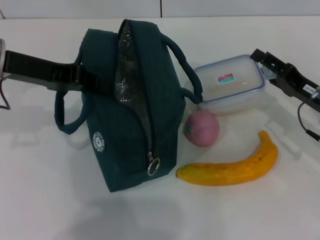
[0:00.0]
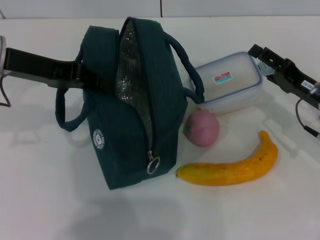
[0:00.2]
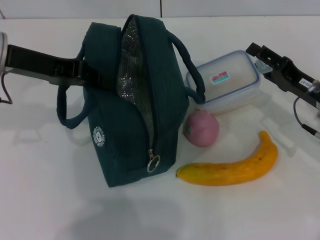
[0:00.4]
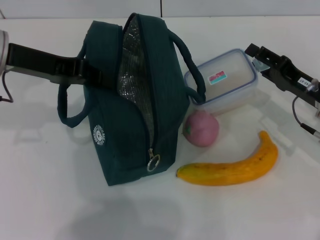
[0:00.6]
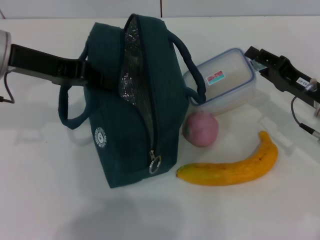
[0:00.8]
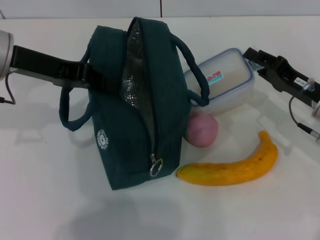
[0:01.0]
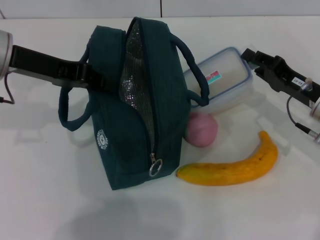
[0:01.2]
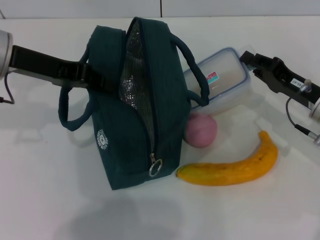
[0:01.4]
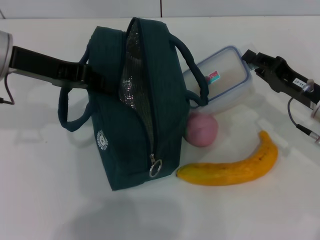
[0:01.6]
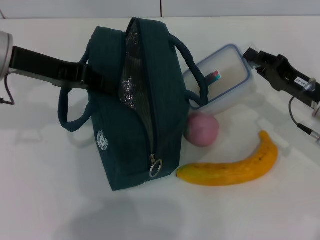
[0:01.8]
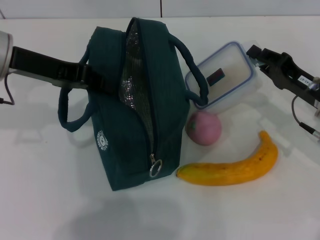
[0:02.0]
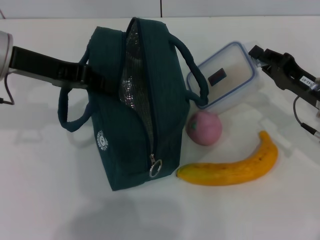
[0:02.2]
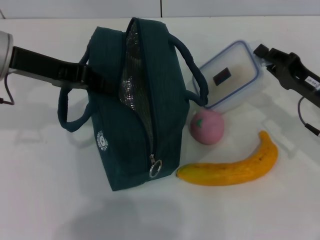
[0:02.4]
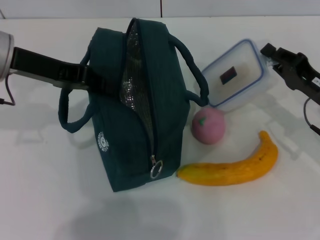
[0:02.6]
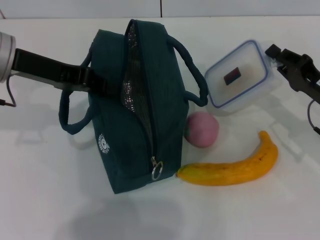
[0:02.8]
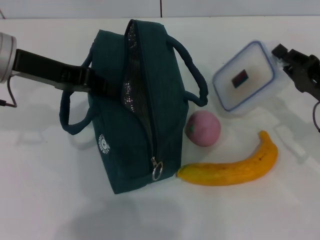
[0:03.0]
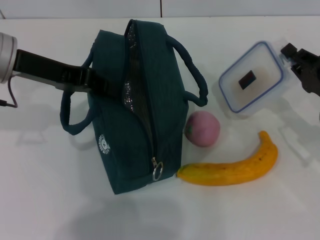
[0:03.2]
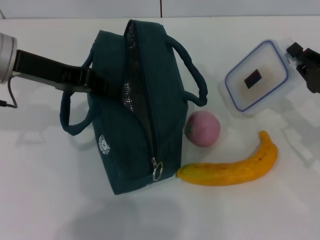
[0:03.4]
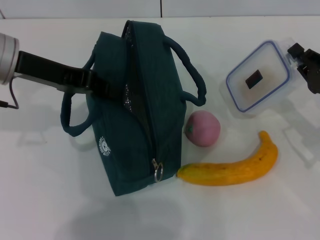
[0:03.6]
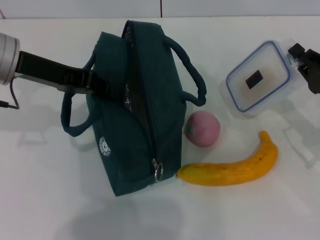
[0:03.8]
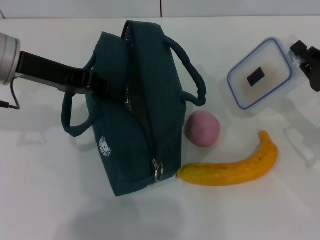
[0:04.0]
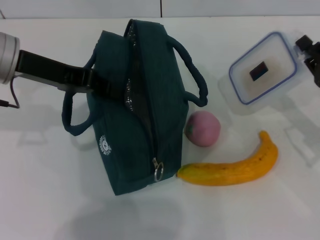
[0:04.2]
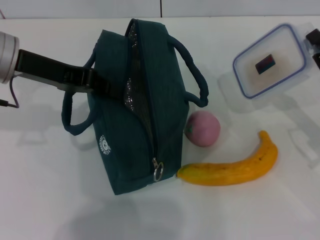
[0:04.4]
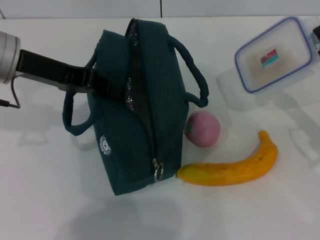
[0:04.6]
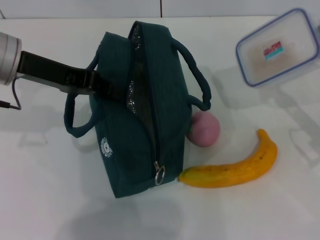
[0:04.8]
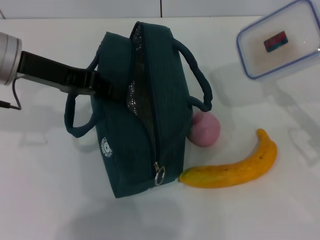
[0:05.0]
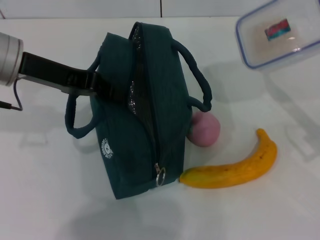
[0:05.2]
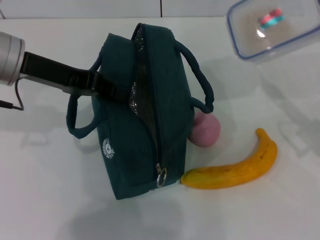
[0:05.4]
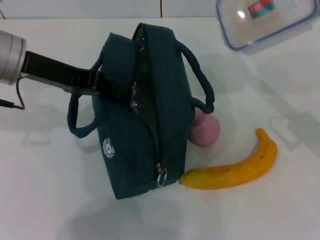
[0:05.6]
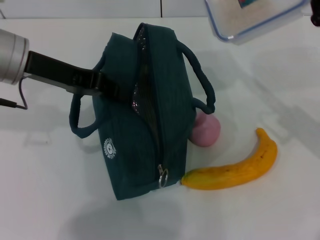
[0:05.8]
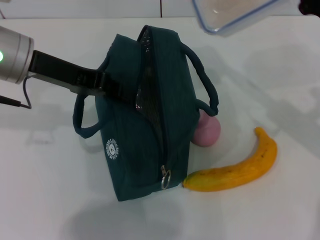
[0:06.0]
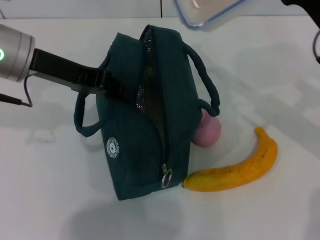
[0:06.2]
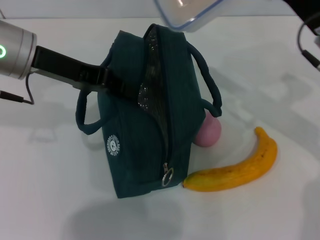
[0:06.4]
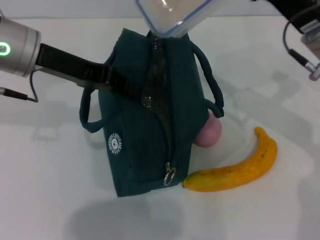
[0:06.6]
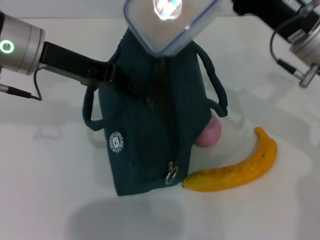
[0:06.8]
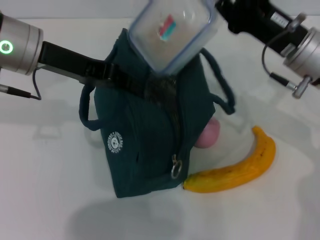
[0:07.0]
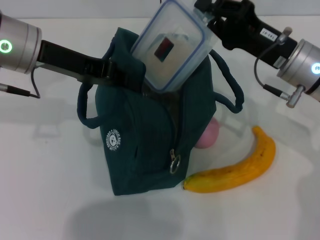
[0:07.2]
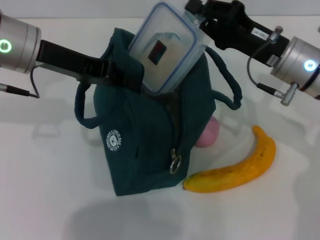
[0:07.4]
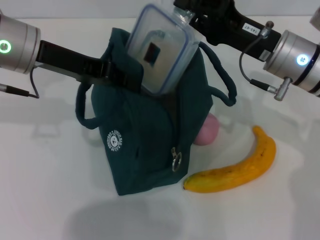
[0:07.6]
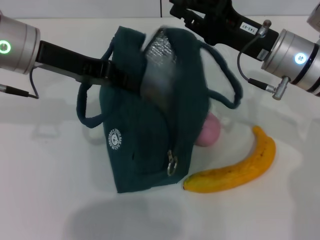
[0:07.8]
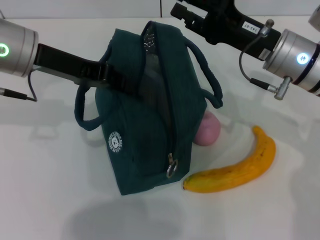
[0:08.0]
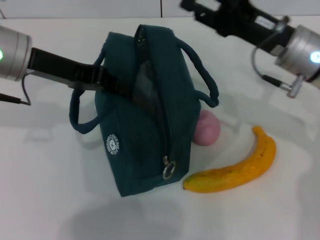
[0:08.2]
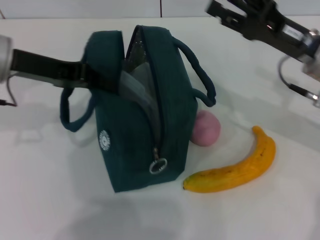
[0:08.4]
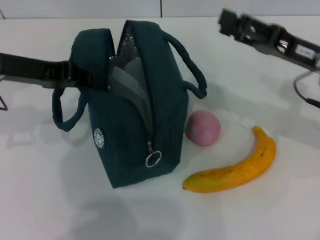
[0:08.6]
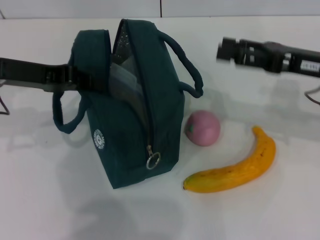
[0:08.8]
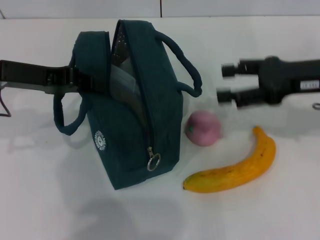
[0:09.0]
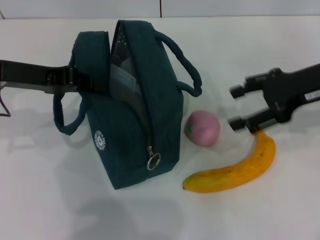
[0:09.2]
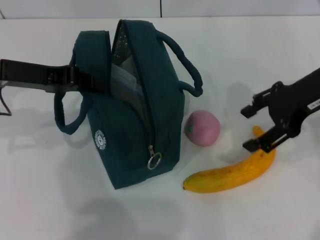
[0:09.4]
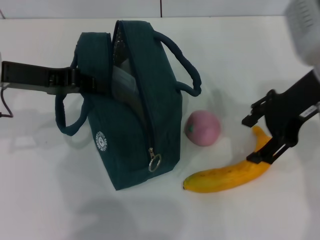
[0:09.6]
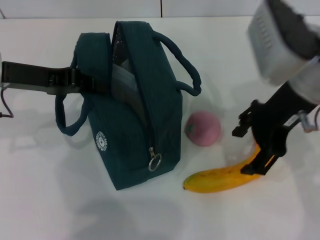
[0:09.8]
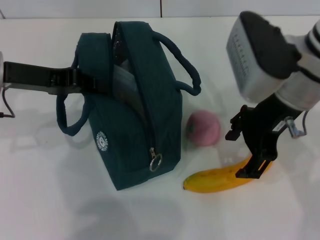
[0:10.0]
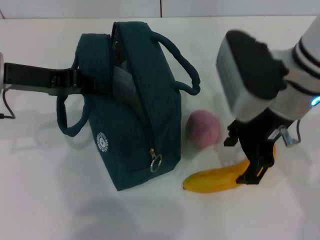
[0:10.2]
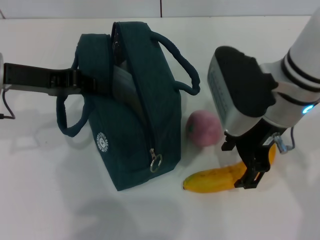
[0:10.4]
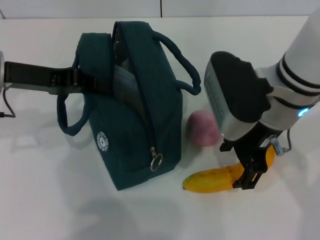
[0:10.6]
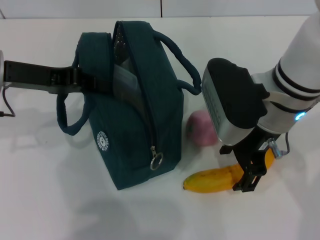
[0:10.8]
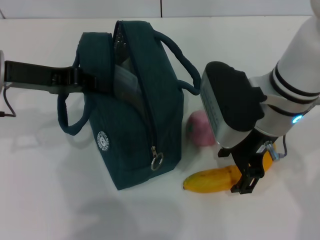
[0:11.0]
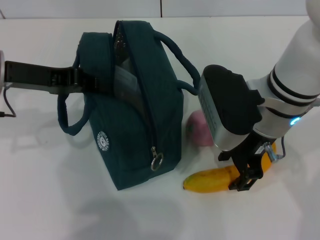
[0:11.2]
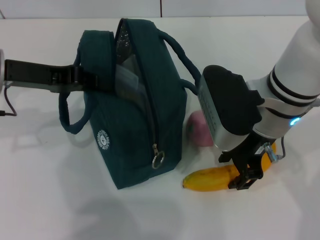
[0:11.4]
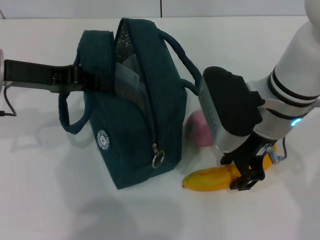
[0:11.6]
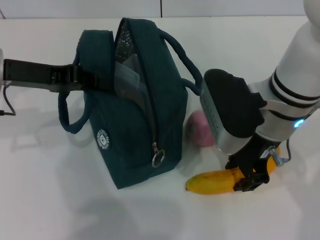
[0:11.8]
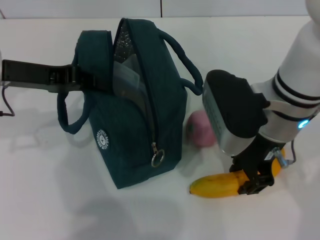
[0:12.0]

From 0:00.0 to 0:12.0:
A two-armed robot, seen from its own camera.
Step, from 0:02.0 to 0:08.0: Place the lunch box into the lunch bag with your right hand.
Step, from 0:08.2 to 0:11.6: Take the banana with your right hand.
From 0:00.0 to 0:01.6: The right gripper closes.
From 0:01.6 to 0:03.0: The grippers stay close to where they were, moving slightly.
From 0:03.0 to 0:04.4: The grippers stay close to where they were, moving slightly.
From 0:04.4 to 0:06.0: The right gripper travels upward and to the left by approximately 10 cm.
From 0:06.0 to 0:07.6: The right gripper heads to the left, covering approximately 10 cm.
From 0:07.6 to 0:09.0: The left gripper shifts some 5 cm to the left. Meanwhile the right gripper moves to the right, approximately 10 cm, and opens.
From 0:09.0 to 0:10.4: The right gripper shifts about 15 cm to the left.
From 0:10.4 to 0:12.0: The right gripper closes.

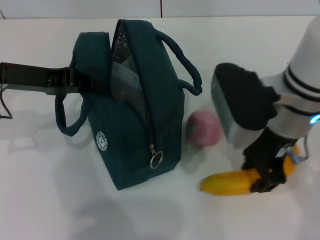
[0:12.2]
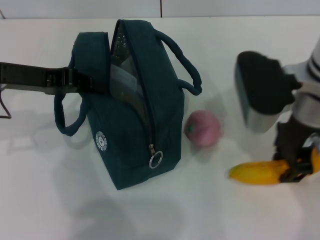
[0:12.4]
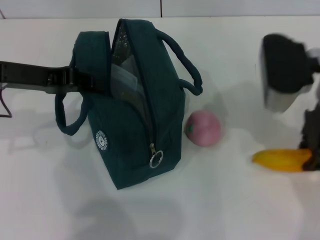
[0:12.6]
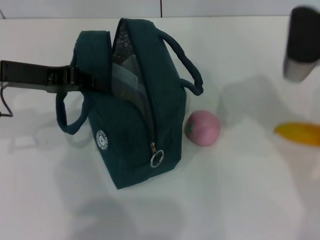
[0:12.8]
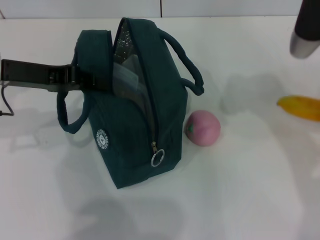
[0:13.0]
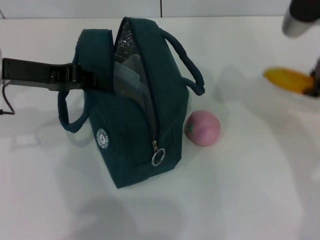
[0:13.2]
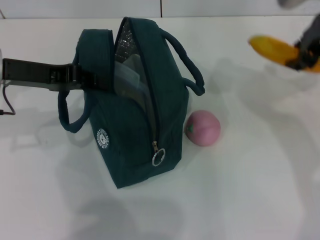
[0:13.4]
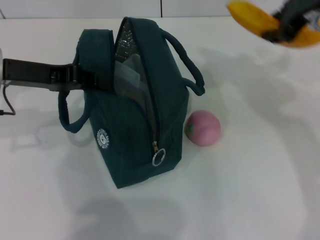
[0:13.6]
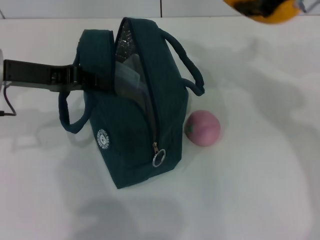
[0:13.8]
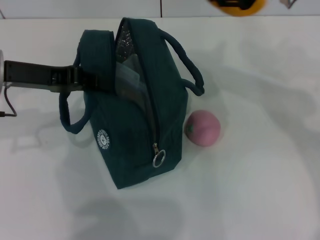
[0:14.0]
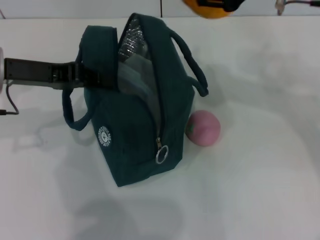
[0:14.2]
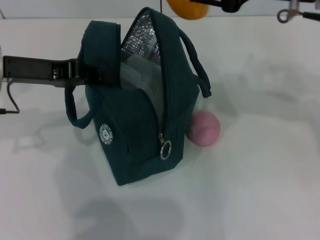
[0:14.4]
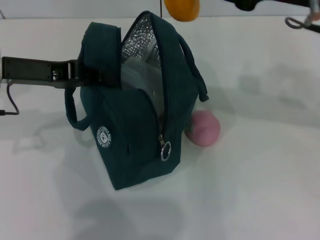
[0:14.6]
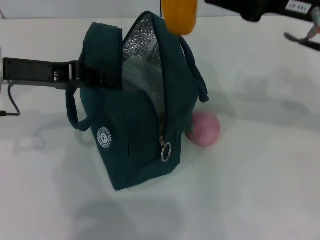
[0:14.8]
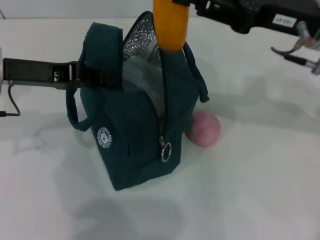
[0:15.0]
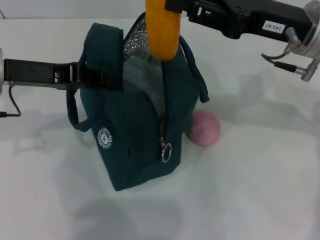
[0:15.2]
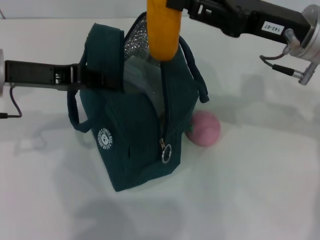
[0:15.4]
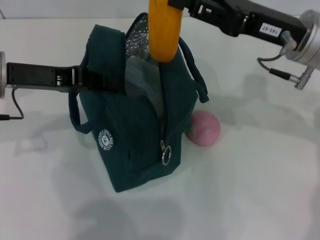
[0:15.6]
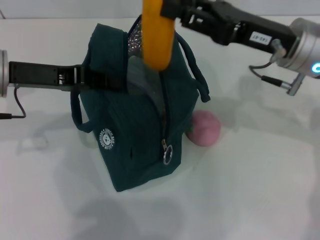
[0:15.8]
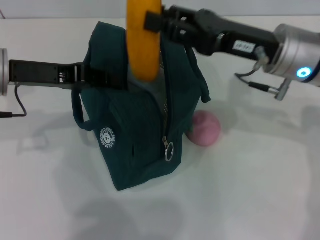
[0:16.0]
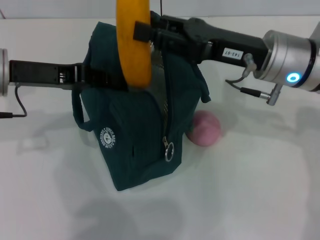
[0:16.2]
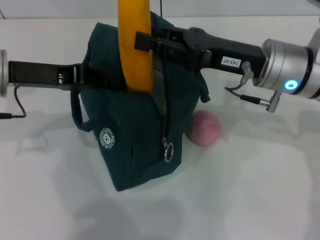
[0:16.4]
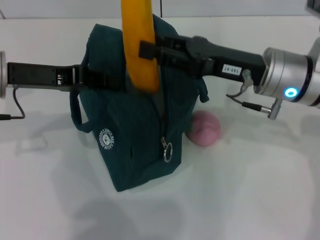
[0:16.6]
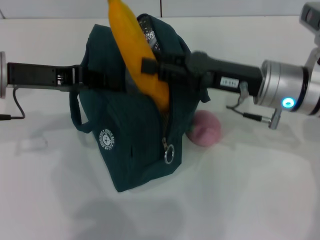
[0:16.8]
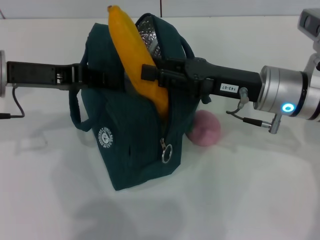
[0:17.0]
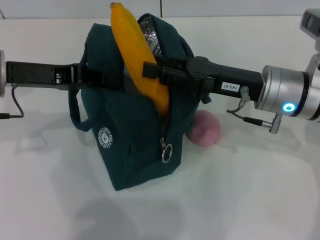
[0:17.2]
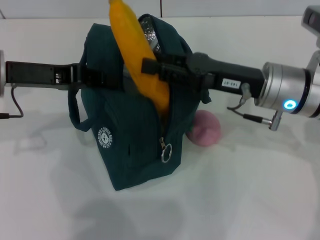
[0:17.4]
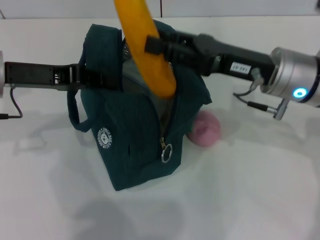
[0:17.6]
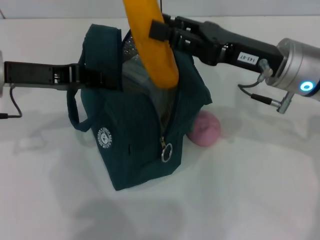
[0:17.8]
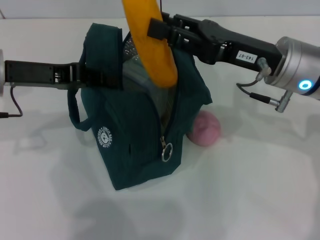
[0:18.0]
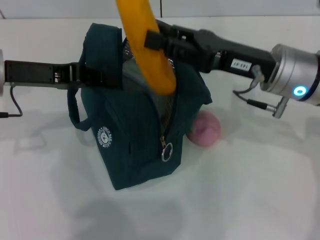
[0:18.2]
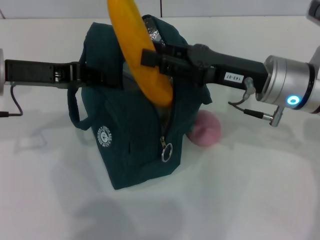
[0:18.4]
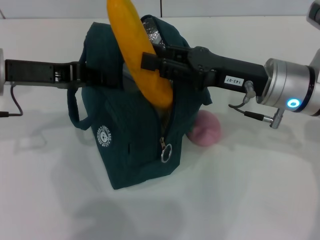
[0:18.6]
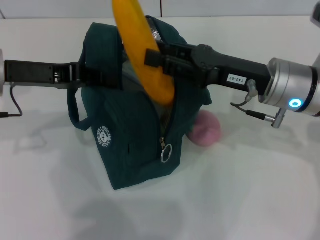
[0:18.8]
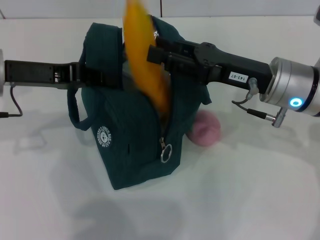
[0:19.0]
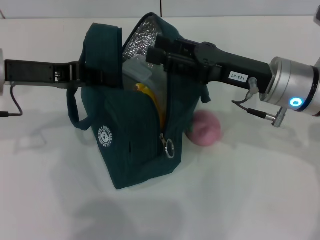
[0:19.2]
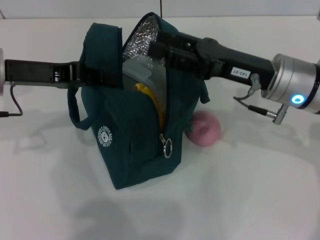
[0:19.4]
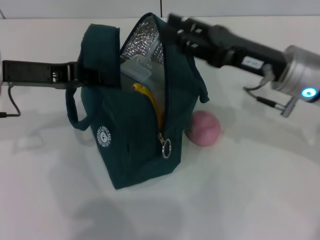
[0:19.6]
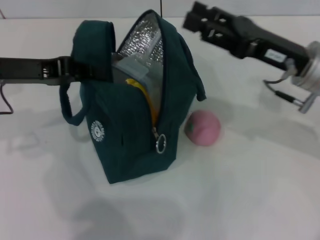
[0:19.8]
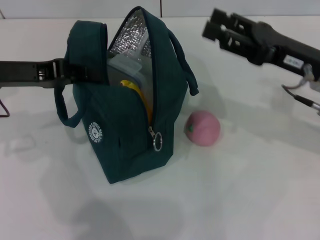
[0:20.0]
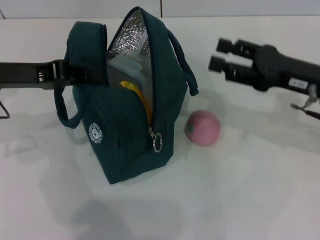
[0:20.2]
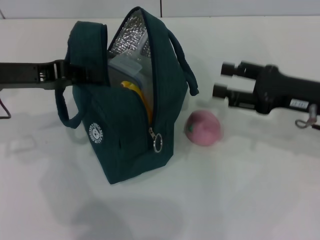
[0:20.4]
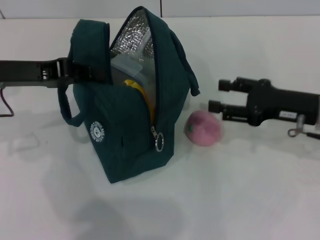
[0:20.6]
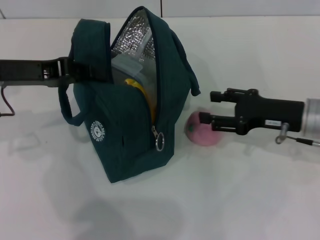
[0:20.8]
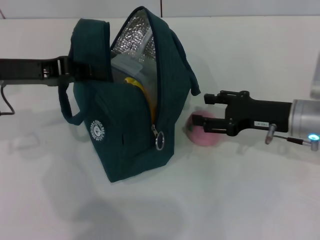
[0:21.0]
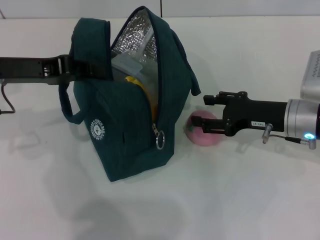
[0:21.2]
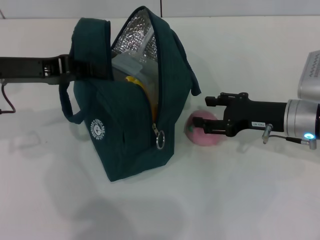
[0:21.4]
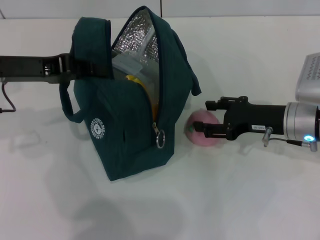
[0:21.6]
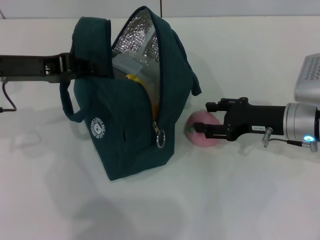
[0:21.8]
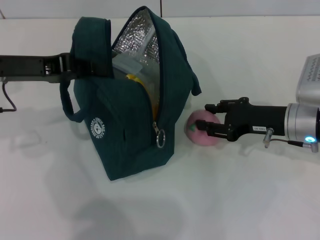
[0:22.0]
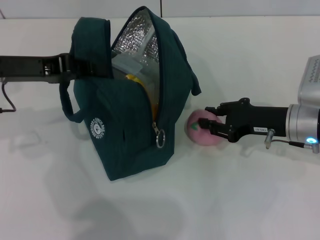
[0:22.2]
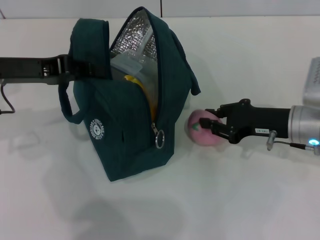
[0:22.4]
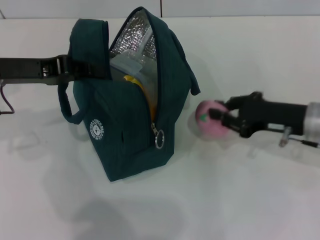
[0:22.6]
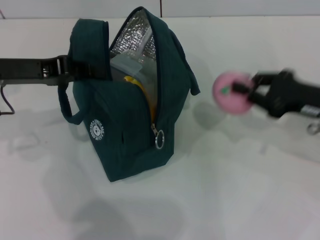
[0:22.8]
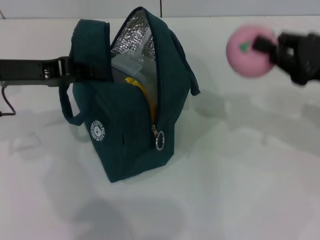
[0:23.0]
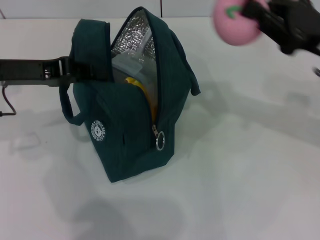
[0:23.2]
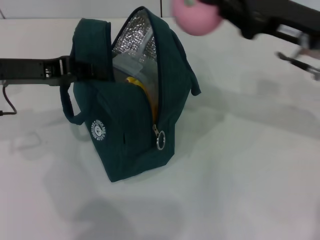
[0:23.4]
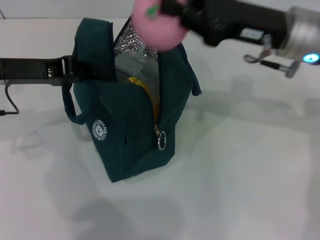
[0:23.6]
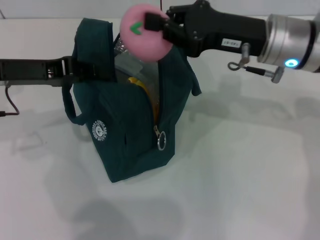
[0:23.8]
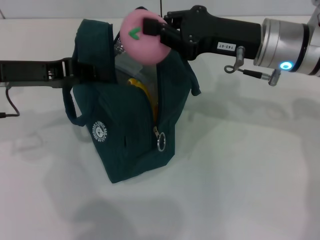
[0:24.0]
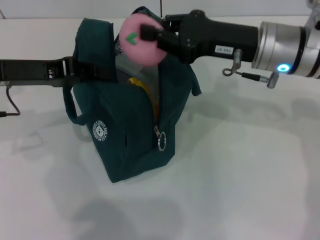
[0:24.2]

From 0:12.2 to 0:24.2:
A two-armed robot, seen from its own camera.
Step, from 0:12.2 to 0:19.0: Put the banana into the lunch bag with your right hand.
Step, from 0:19.4 to 0:22.4: Grab the peach with your right hand.
From 0:12.2 to 0:13.8: The right gripper shifts about 15 cm upward, forward and to the right.
From 0:13.8 to 0:15.2: The right gripper goes about 10 cm downward.
From 0:15.2 to 0:16.6: The right gripper moves downward, approximately 5 cm.
From 0:16.6 to 0:18.2: The grippers stay close to where they were, moving slightly.
From 0:19.8 to 0:21.2: The right gripper goes approximately 5 cm downward.
From 0:21.2 to 0:22.6: The right gripper closes up.
From 0:22.6 to 0:24.2: The right gripper heads to the left and upward, covering roughly 10 cm.
